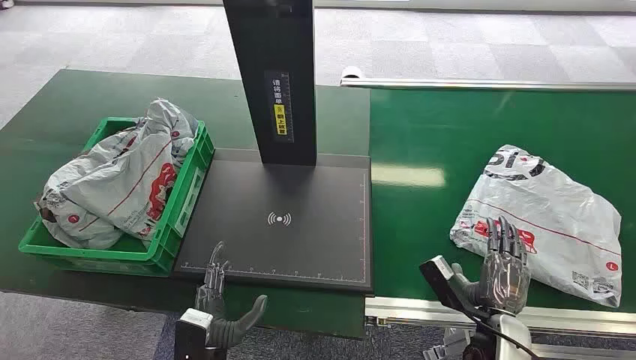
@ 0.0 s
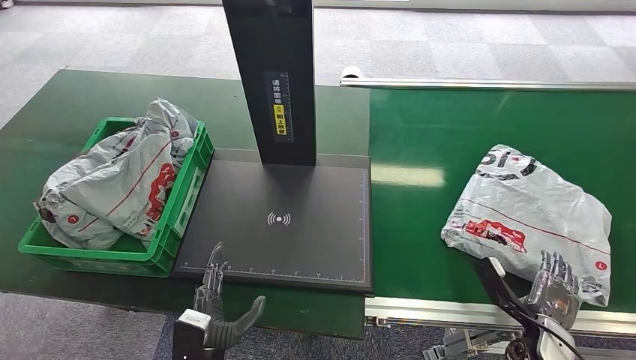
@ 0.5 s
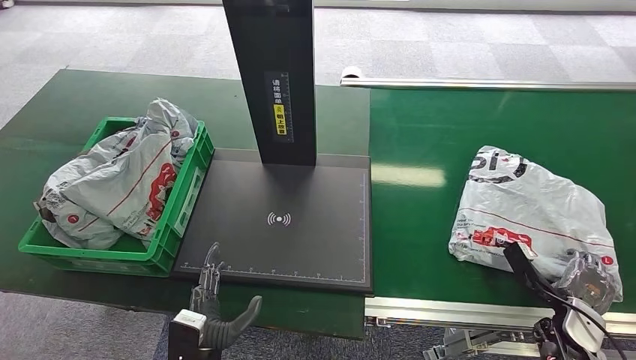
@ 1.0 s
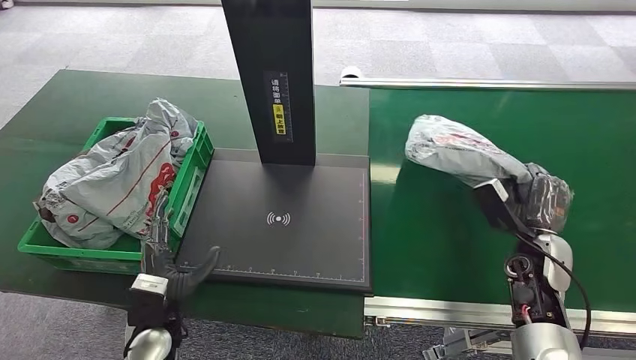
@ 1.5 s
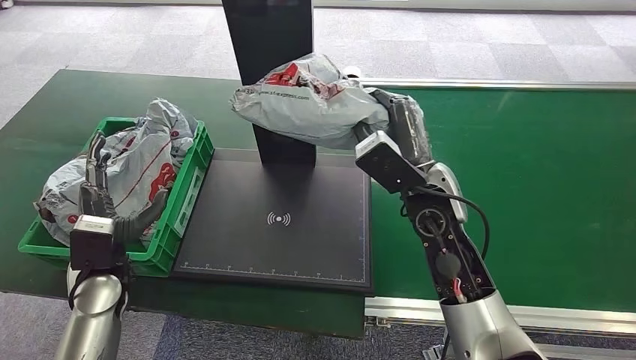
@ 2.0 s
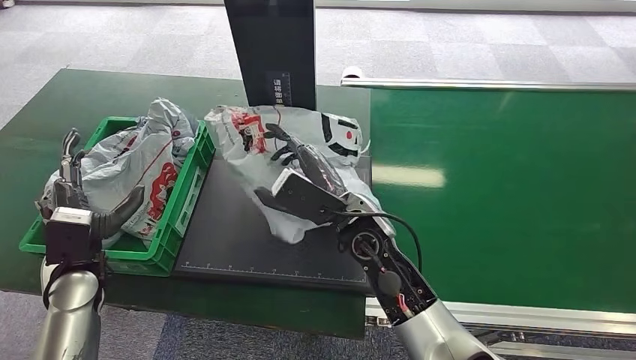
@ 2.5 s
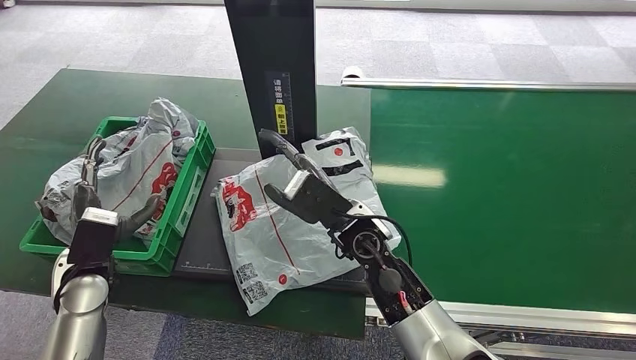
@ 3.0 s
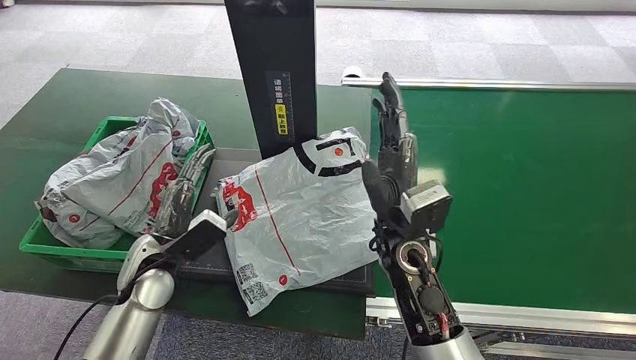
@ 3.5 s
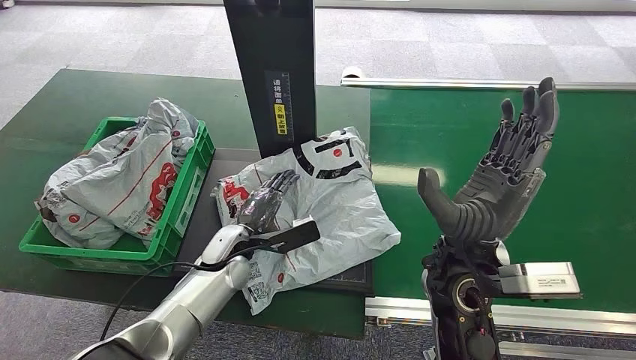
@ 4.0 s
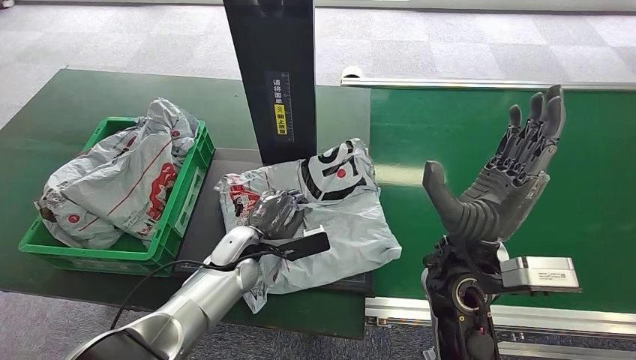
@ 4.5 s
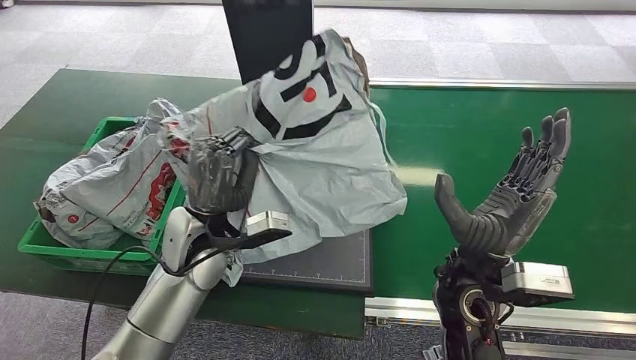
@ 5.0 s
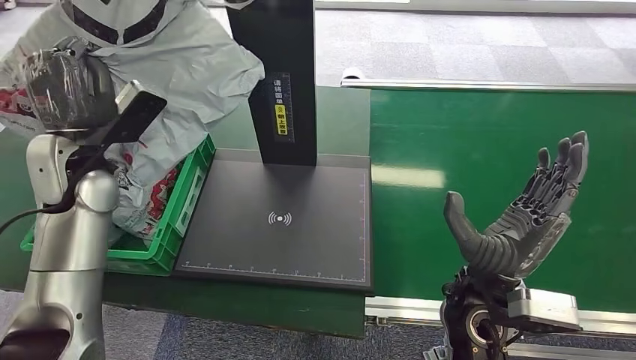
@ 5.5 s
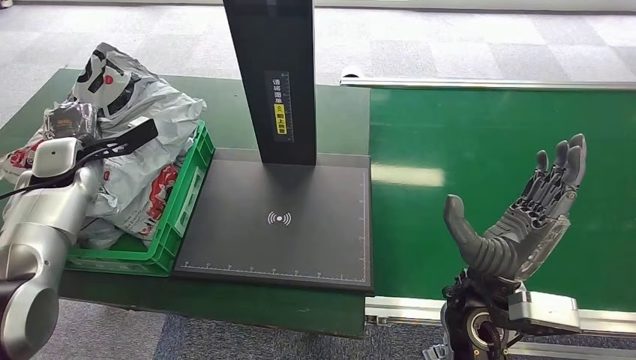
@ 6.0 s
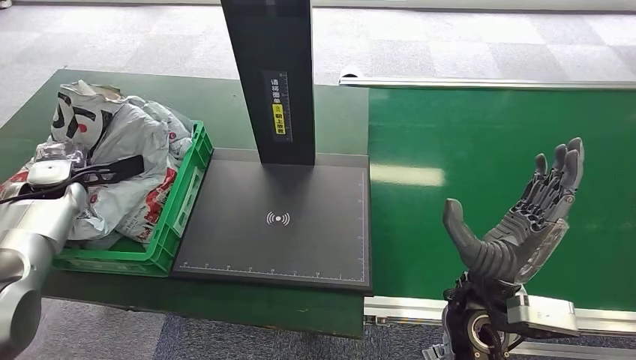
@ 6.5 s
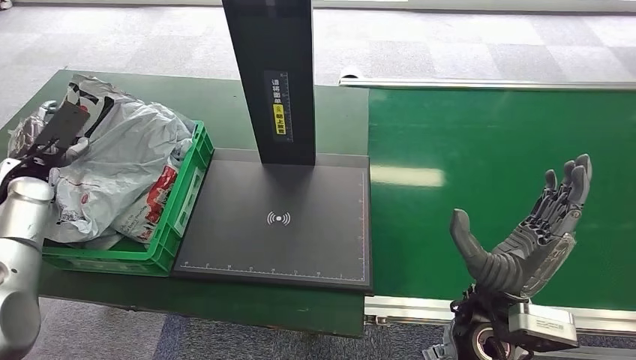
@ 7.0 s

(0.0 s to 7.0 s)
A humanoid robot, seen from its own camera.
Step, 0.0 s - 1.5 s: Pick up the package from the conveyor belt.
Step, 2.0 s - 3.0 s: Place the package onto the inbound machine.
Step, 4.0 s - 5.0 s: Pick up the package from the inbound machine.
Step, 5.5 s - 7.0 s: Place the package into the parcel locker.
